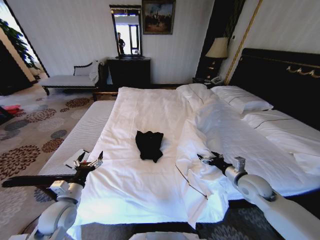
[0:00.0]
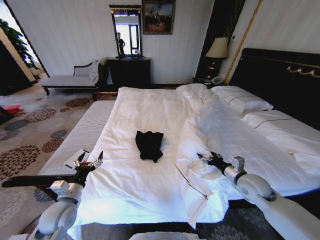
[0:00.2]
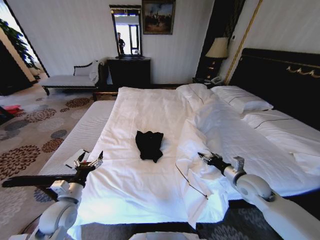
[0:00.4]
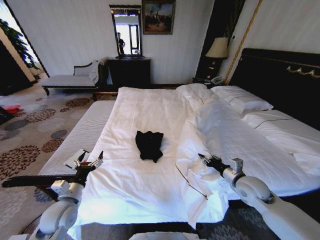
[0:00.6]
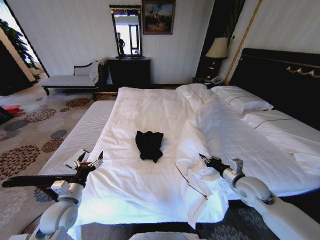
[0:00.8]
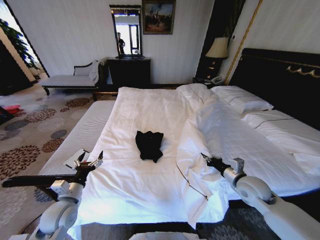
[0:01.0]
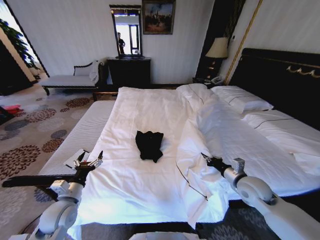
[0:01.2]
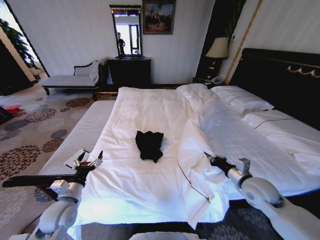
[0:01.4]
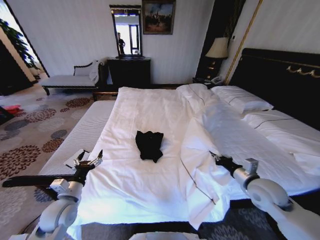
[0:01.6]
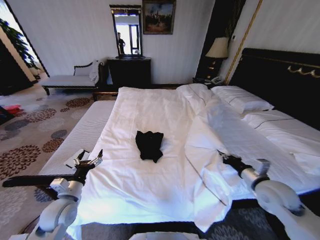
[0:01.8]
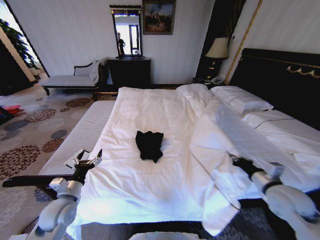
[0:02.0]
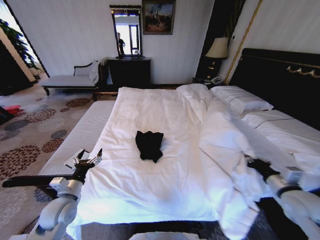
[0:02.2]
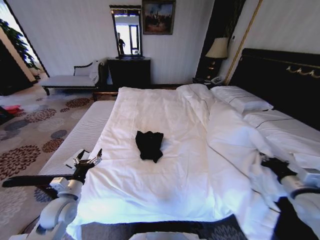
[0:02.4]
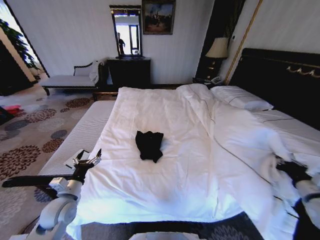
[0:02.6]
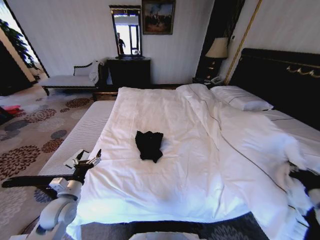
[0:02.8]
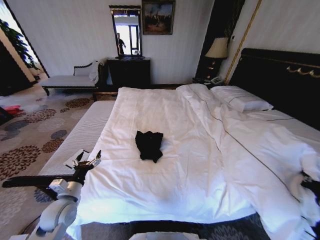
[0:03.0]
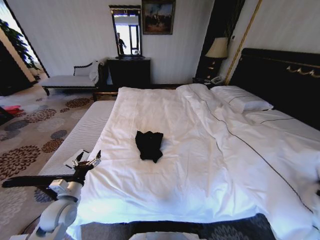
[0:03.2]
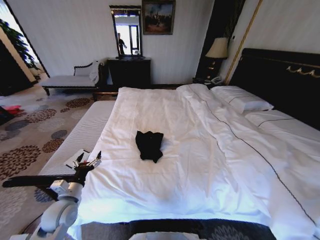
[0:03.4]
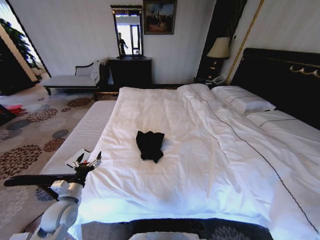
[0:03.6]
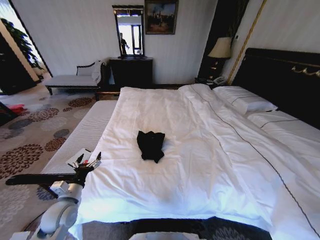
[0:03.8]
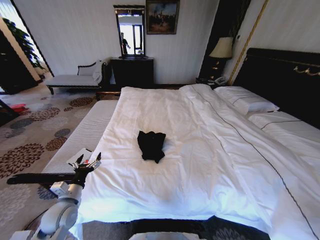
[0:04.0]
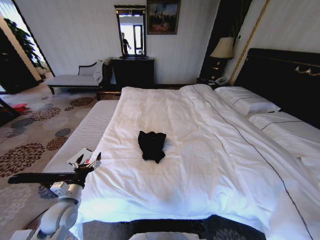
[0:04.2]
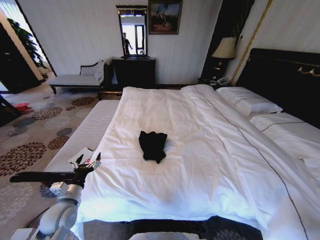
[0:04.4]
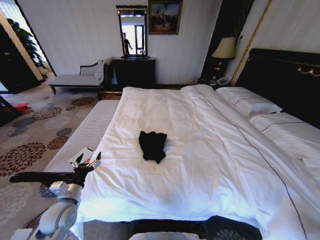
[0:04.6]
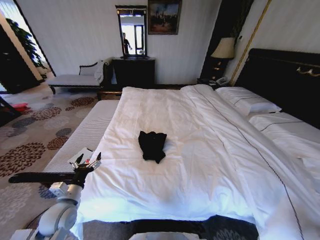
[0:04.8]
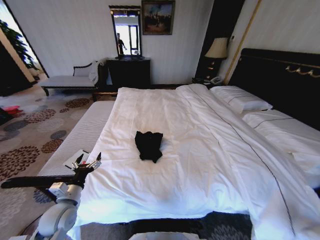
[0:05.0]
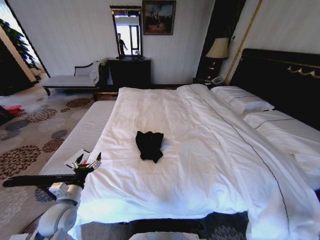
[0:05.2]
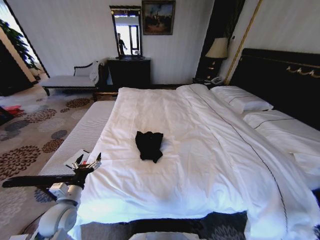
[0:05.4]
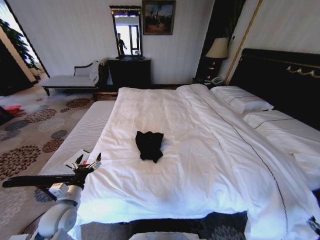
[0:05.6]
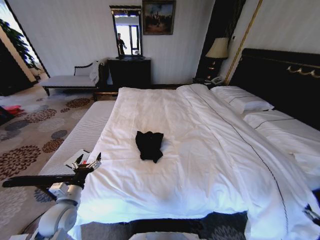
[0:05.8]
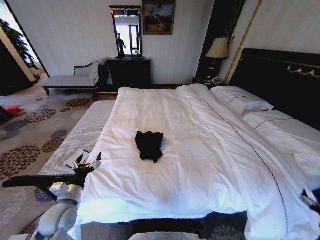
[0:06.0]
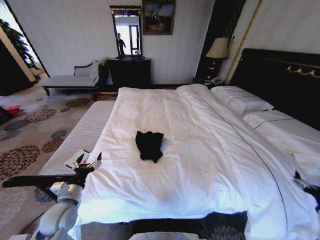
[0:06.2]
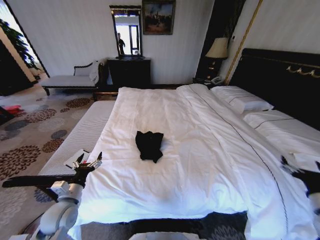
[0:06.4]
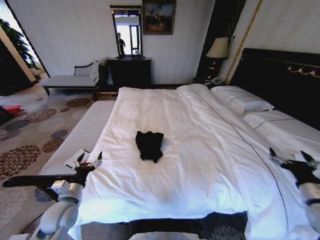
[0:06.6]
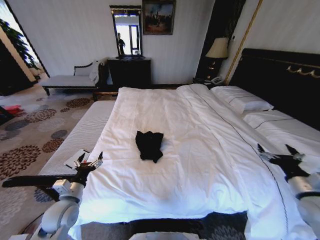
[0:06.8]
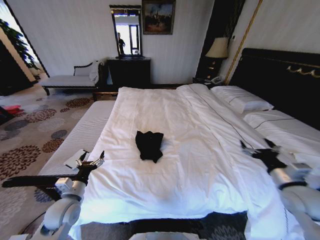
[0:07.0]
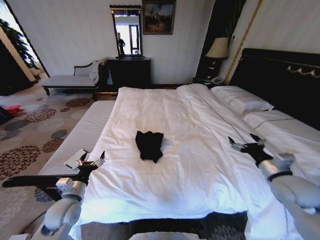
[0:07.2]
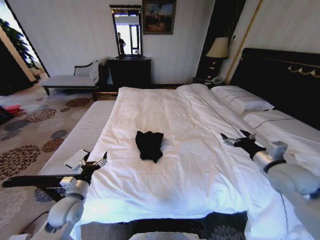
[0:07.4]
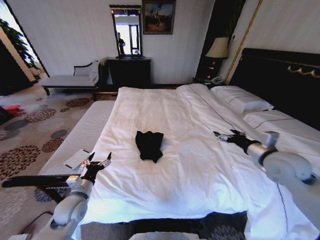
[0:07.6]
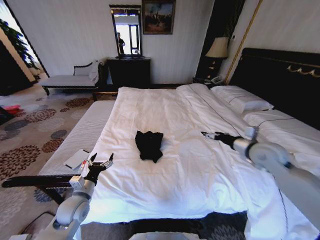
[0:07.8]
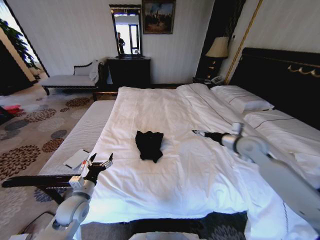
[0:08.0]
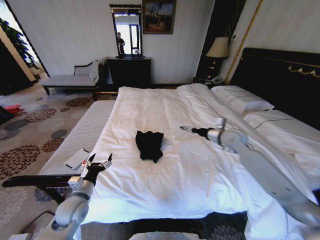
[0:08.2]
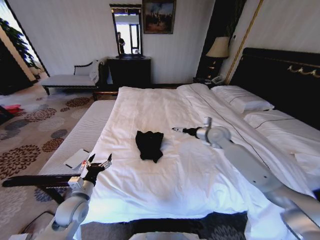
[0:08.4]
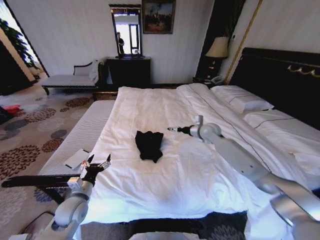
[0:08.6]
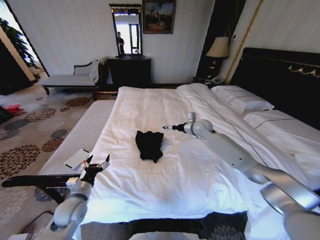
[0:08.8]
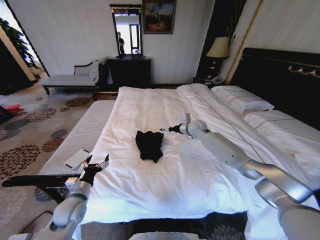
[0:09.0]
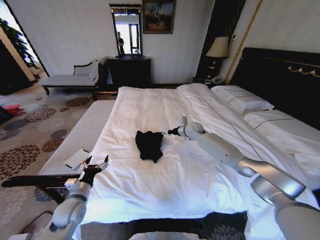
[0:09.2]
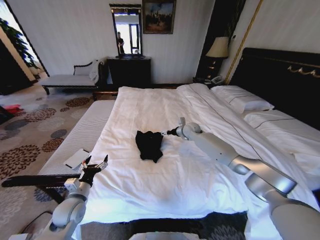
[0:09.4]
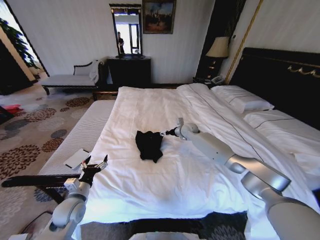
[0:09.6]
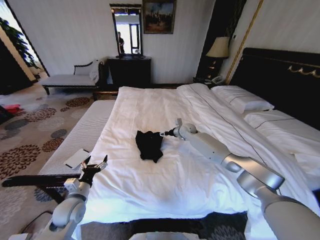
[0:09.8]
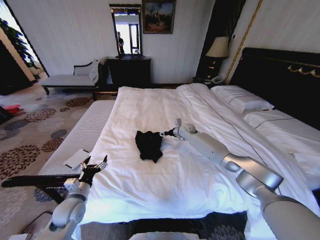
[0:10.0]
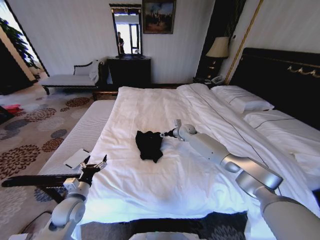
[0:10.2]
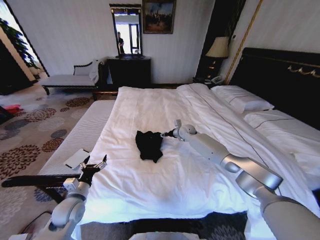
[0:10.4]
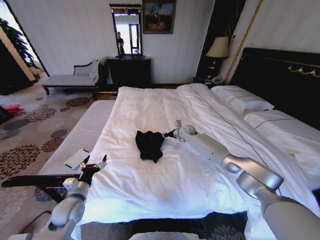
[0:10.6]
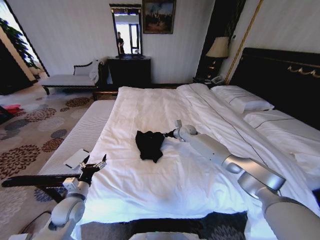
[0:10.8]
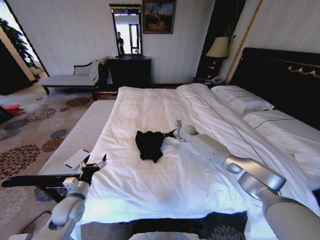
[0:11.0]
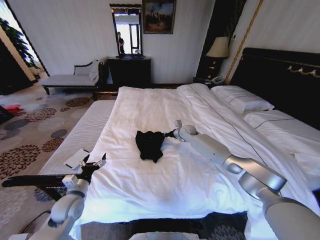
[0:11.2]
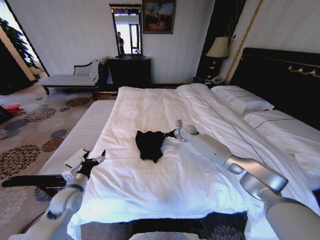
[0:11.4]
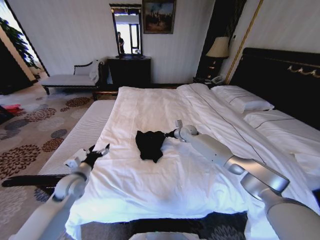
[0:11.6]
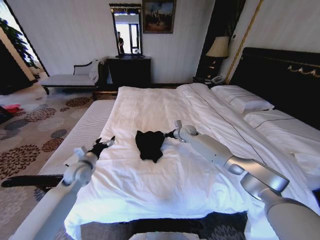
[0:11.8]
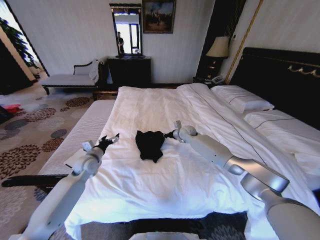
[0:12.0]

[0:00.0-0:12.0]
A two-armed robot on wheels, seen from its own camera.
Task of the whole recording: Fold the clothes on the bed.
0.0 to 1.6 s: The right gripper closes up.
1.6 to 3.0 s: The right gripper travels to the right and backward by approximately 25 cm.
3.0 to 4.4 s: The right gripper goes about 20 cm downward, backward and to the right.
4.4 to 6.0 s: The right gripper moves to the left, upward and forward, roughly 15 cm, and opens its fingers.
6.0 to 7.6 s: The right gripper moves forward, upward and to the left, approximately 35 cm.
7.6 to 9.0 s: The right gripper moves forward and to the left, some 30 cm.
9.0 to 10.4 s: The right gripper travels downward by some 5 cm.
10.4 to 12.0 s: The left gripper heads forward, covering some 15 cm. The right gripper closes its fingers.

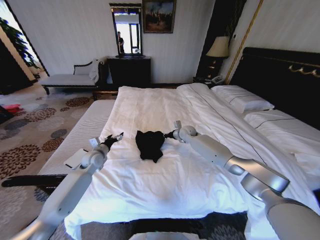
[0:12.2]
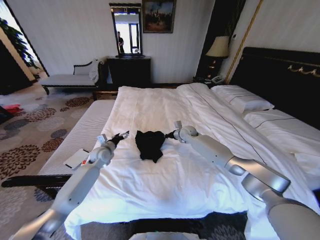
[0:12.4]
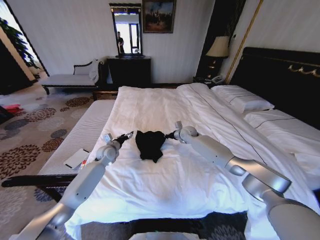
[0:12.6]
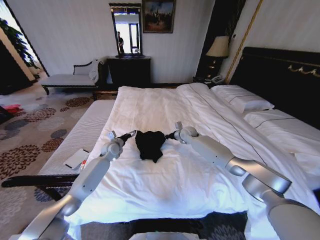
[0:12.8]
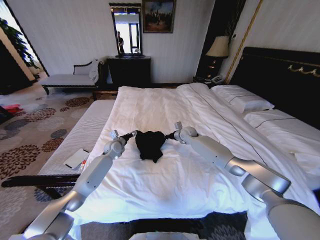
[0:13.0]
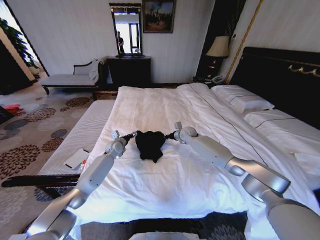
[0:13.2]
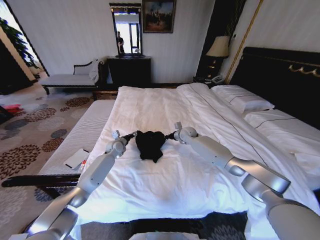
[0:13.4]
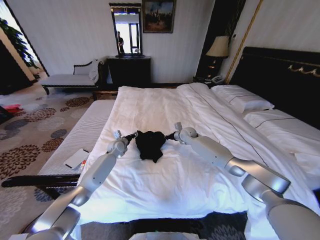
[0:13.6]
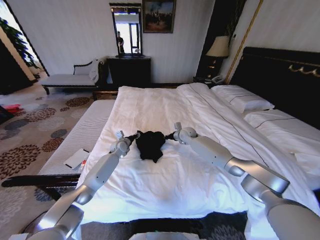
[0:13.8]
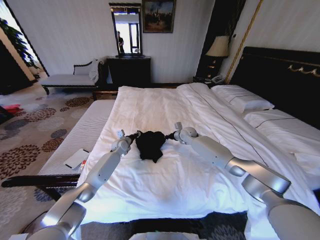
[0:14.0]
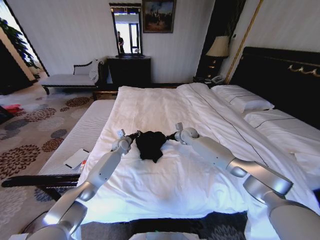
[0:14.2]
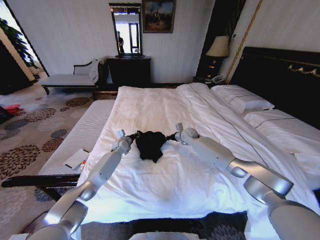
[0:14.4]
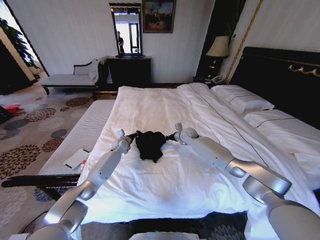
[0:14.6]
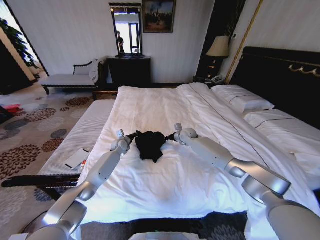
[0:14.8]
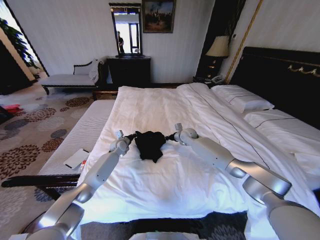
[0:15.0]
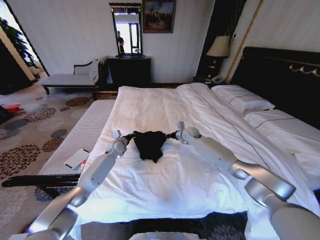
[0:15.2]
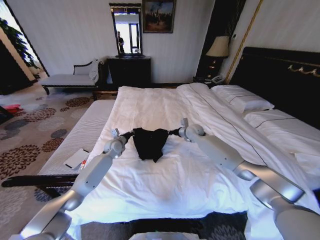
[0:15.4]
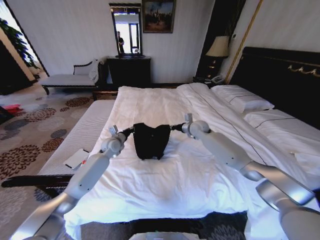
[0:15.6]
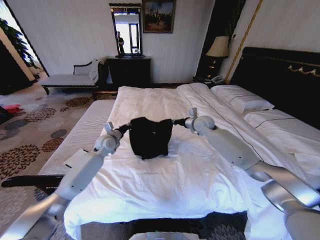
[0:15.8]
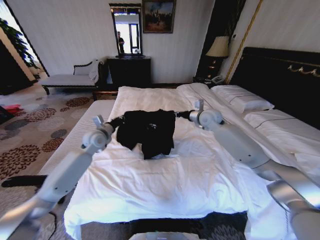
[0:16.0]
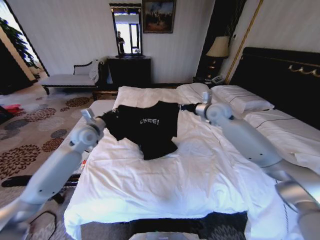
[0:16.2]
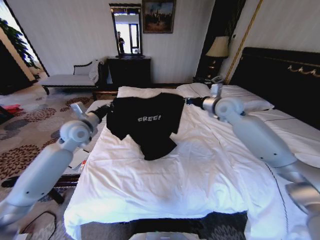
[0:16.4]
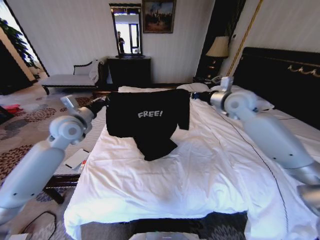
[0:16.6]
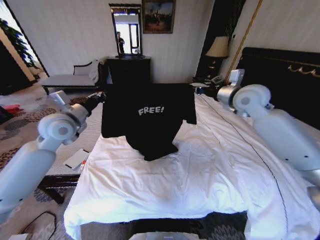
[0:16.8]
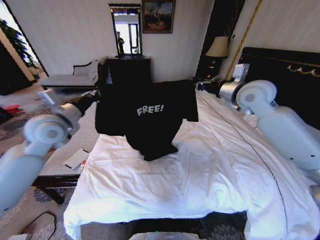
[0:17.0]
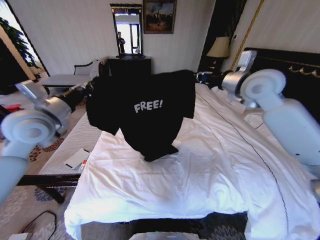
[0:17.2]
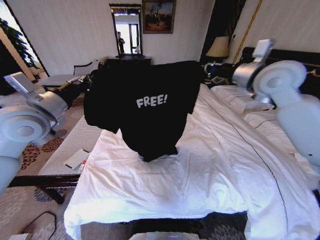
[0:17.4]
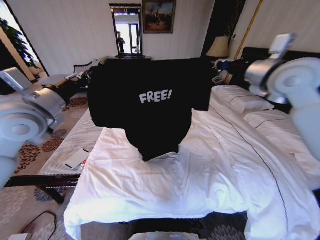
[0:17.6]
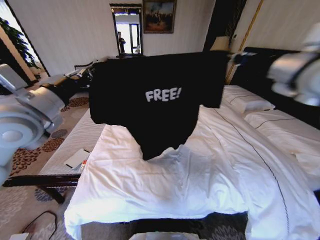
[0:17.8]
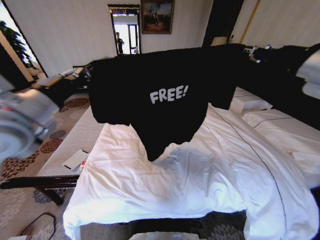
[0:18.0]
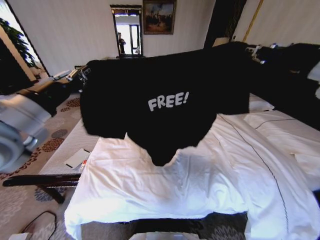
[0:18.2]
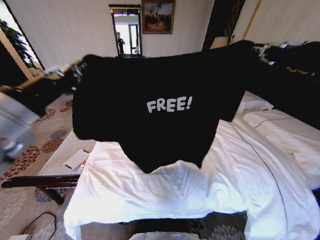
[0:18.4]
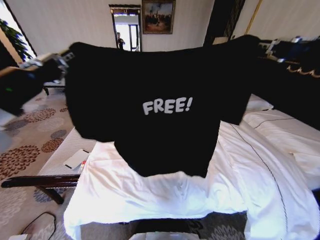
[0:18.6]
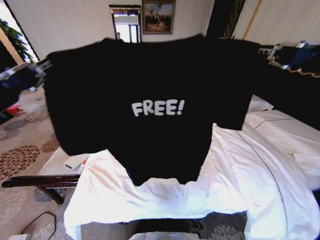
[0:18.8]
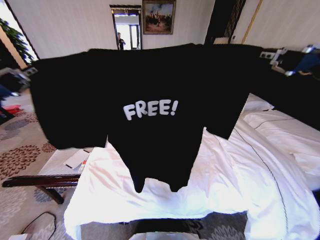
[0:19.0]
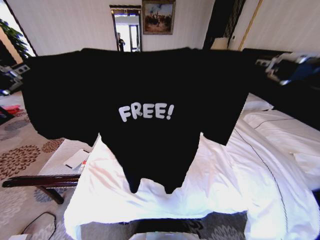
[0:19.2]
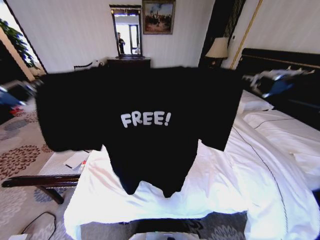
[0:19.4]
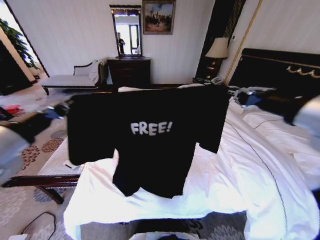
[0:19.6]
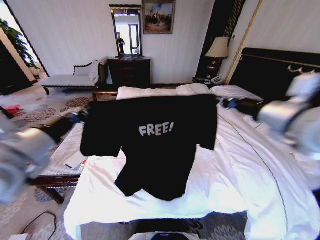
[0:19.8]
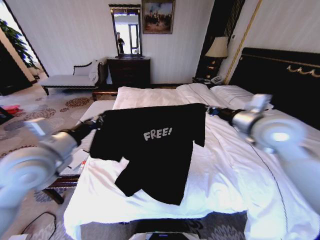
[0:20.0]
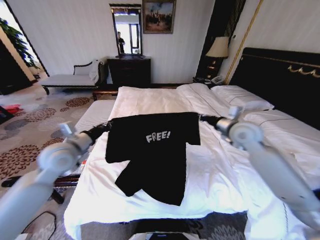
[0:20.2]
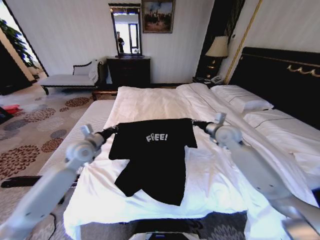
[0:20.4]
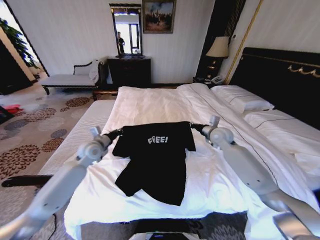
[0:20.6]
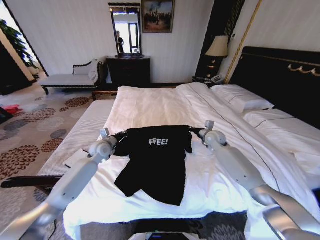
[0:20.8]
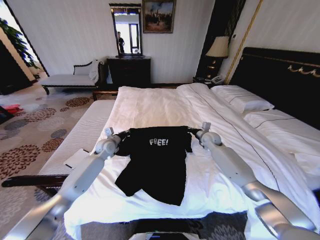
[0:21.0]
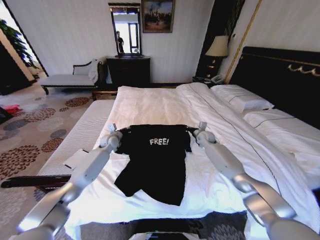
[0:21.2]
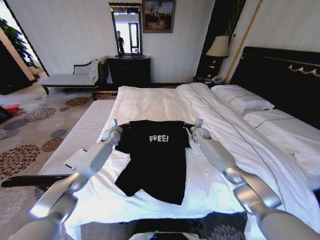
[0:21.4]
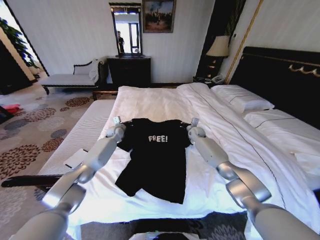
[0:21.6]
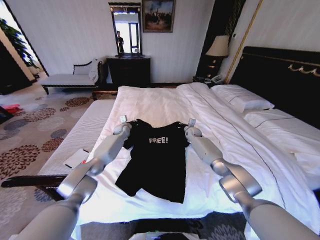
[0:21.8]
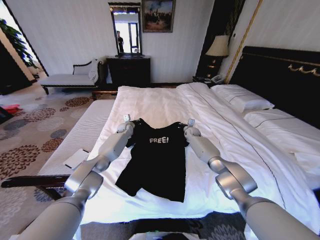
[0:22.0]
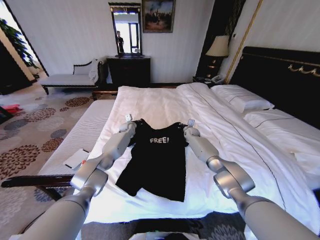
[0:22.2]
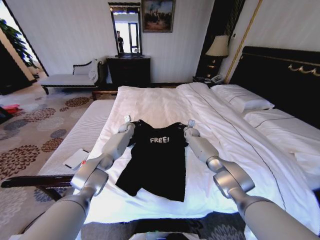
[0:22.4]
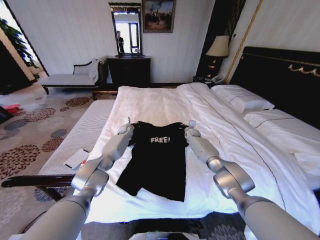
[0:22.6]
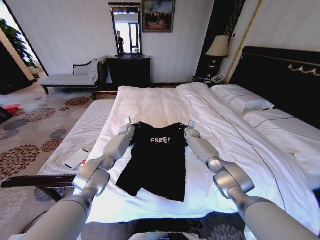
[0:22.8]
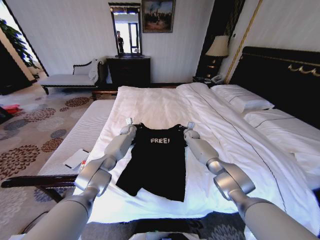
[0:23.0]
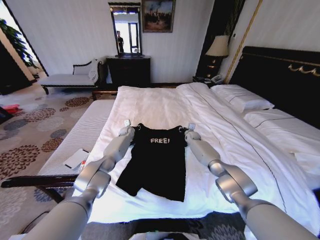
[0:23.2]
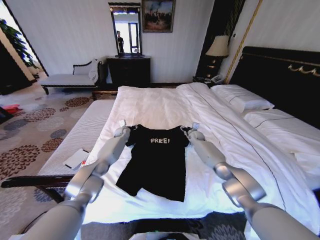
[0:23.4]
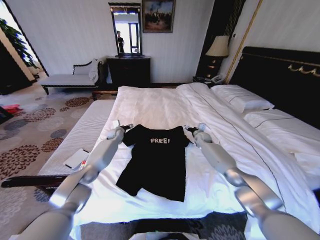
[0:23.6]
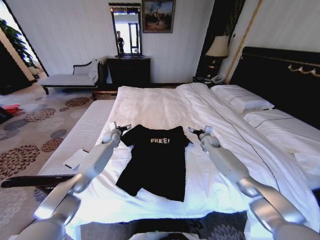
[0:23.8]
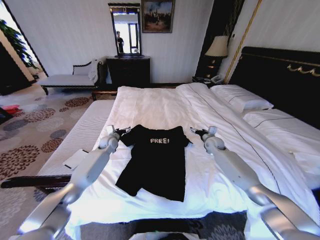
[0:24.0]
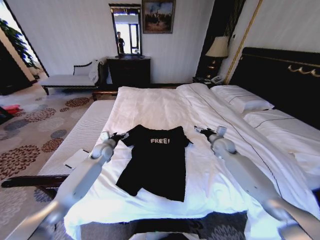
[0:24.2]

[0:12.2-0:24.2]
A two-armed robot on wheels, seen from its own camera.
Task of the whole recording: Fold the clothes on the bed.
12.2 to 13.8 s: The left gripper moves forward and to the right, about 15 cm, and closes.
13.8 to 15.2 s: The left gripper closes up.
15.2 to 16.6 s: The right gripper is displaced upward and to the right by some 25 cm. The left gripper heads upward and backward, covering roughly 30 cm.
16.6 to 18.2 s: The two grippers go some 25 cm backward and upward.
18.2 to 19.8 s: The right gripper moves downward, some 10 cm, and moves approximately 15 cm backward and comes back; the left gripper heads downward, covering some 5 cm, and goes backward and returns, approximately 10 cm each way.
19.8 to 21.2 s: The left gripper heads forward and downward, covering some 40 cm; the right gripper goes approximately 40 cm downward and forward.
21.2 to 22.6 s: The right gripper is displaced forward by some 5 cm, while the left gripper goes some 15 cm forward and to the right.
22.6 to 24.2 s: The left gripper shifts approximately 20 cm backward and to the left, and opens its fingers, while the right gripper goes some 20 cm backward, to the right and upward, and opens its fingers.
